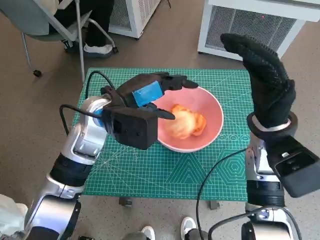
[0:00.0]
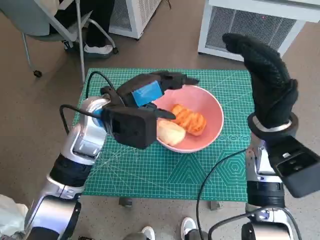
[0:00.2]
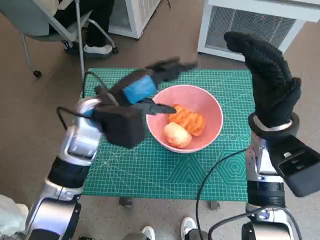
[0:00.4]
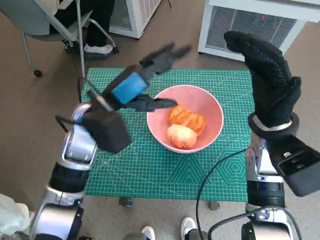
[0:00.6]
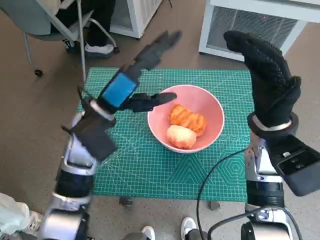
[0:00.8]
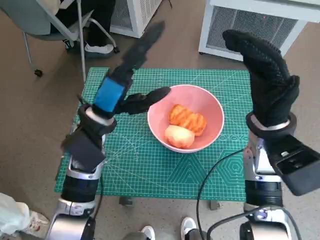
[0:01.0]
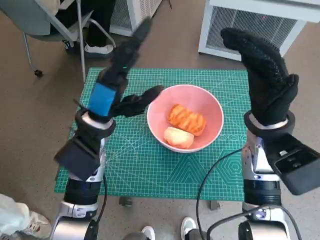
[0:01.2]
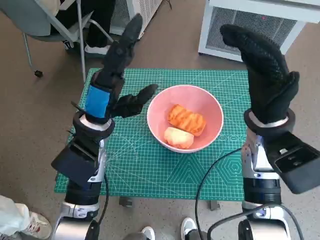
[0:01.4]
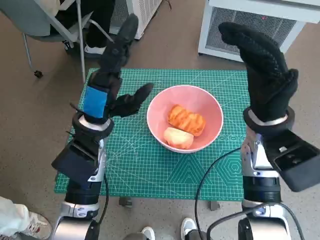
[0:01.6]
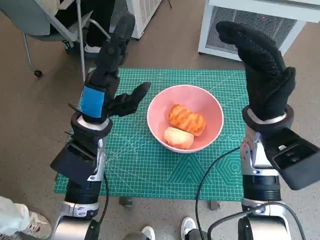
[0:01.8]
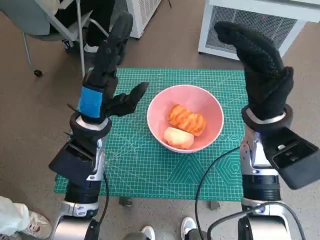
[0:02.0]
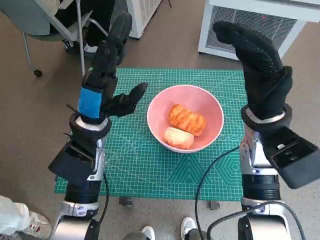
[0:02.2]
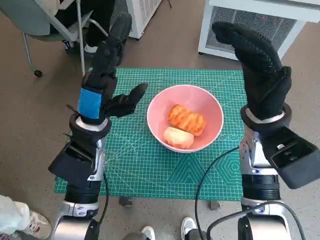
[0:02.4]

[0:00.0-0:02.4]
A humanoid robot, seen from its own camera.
Task of the whole recording: Push the bowl to the center of the table and put the bread into the bowl.
0:01.2 to 0:02.4: The hands move only a little.

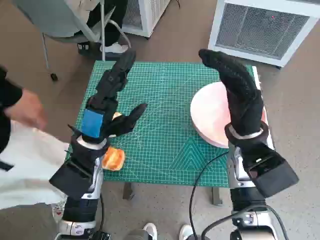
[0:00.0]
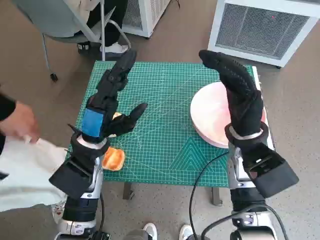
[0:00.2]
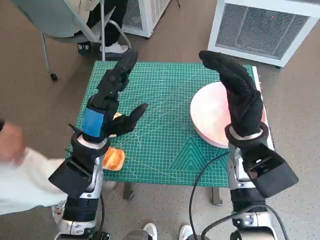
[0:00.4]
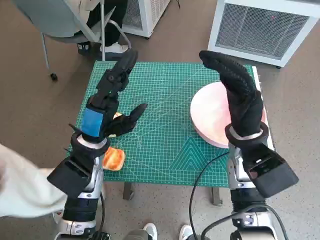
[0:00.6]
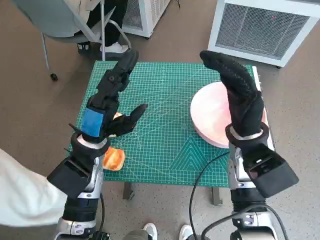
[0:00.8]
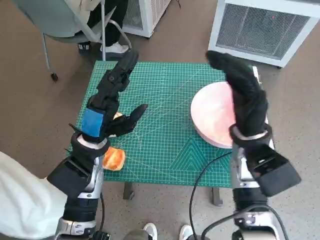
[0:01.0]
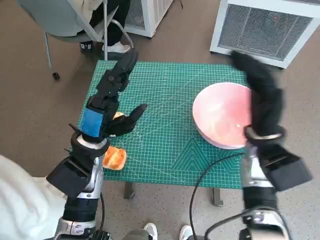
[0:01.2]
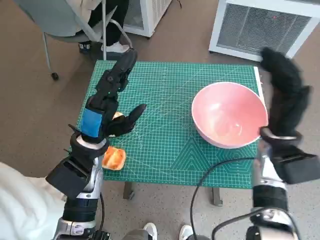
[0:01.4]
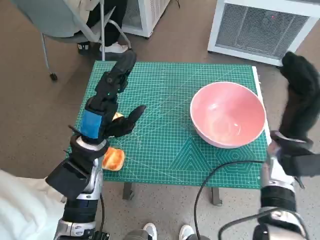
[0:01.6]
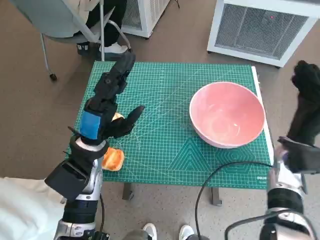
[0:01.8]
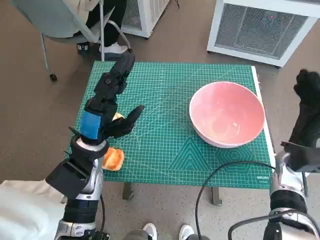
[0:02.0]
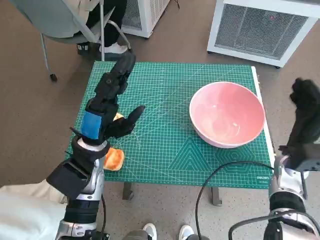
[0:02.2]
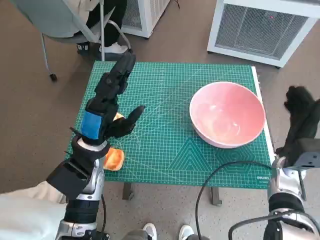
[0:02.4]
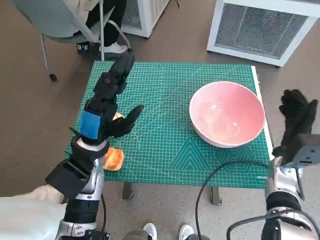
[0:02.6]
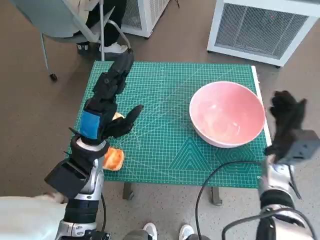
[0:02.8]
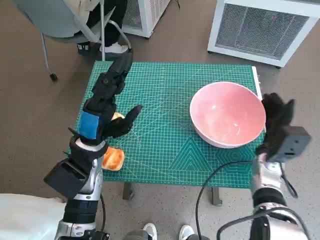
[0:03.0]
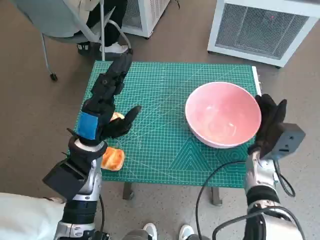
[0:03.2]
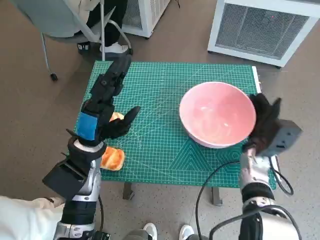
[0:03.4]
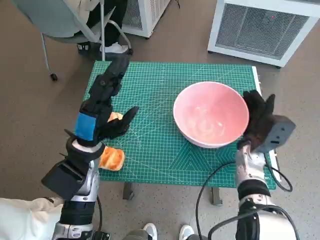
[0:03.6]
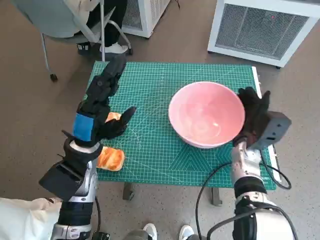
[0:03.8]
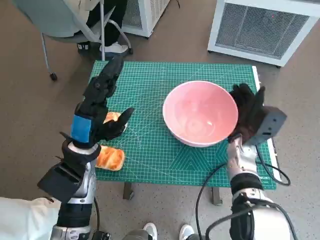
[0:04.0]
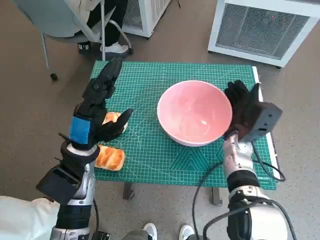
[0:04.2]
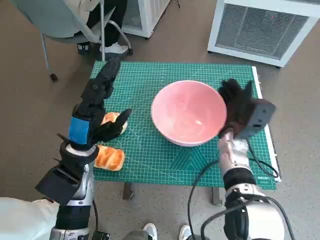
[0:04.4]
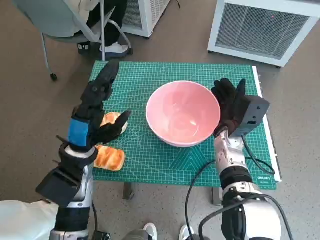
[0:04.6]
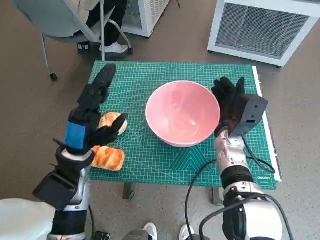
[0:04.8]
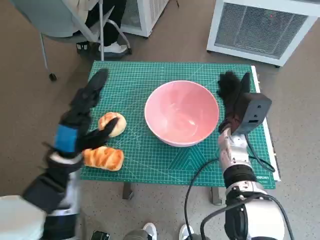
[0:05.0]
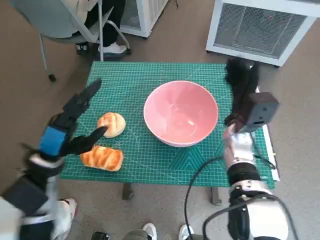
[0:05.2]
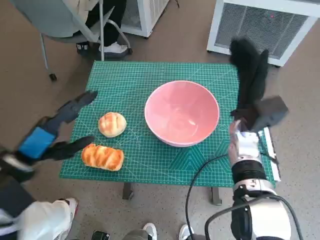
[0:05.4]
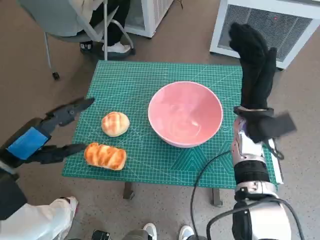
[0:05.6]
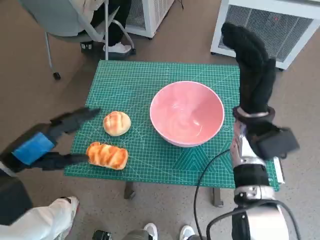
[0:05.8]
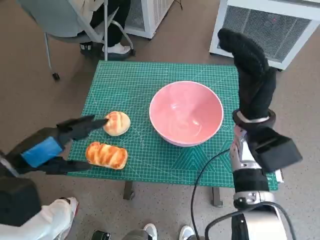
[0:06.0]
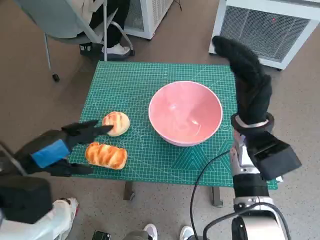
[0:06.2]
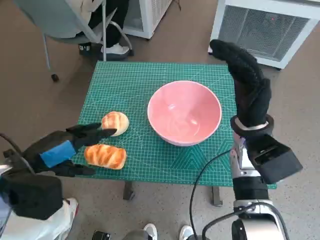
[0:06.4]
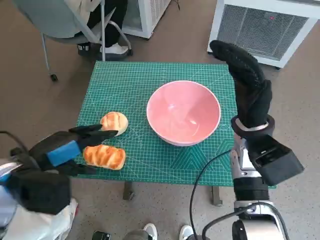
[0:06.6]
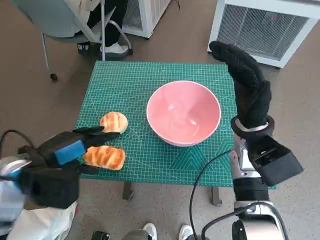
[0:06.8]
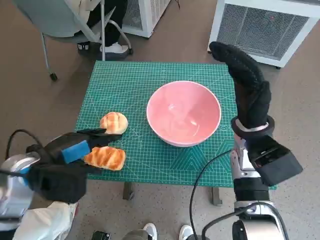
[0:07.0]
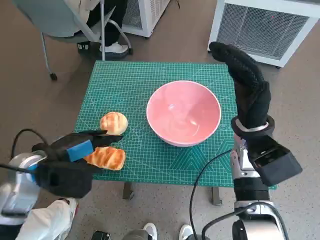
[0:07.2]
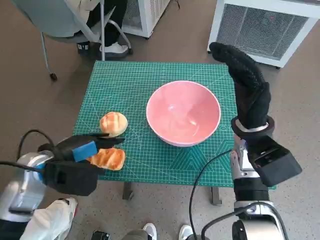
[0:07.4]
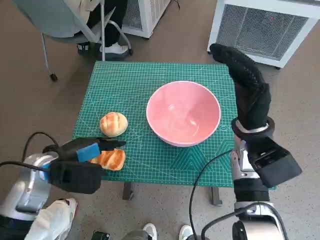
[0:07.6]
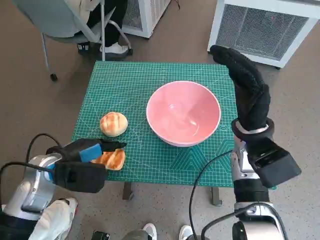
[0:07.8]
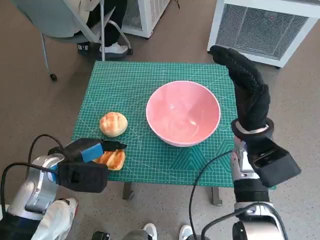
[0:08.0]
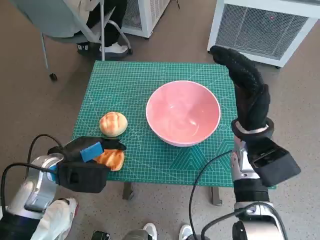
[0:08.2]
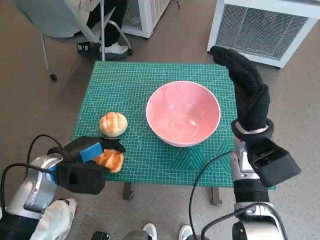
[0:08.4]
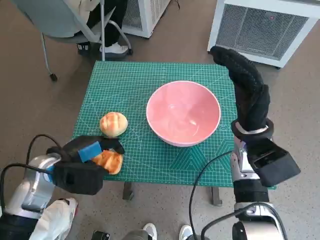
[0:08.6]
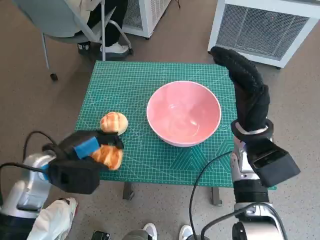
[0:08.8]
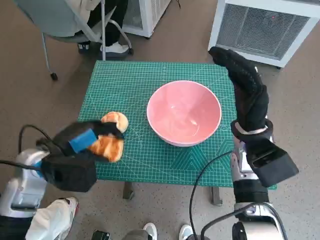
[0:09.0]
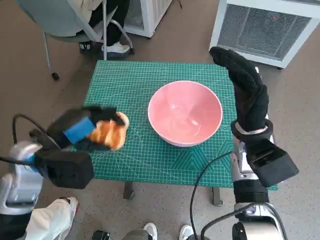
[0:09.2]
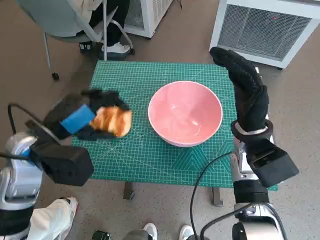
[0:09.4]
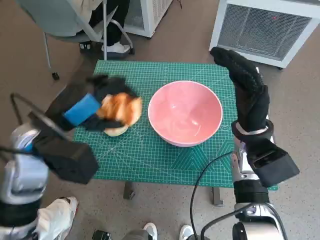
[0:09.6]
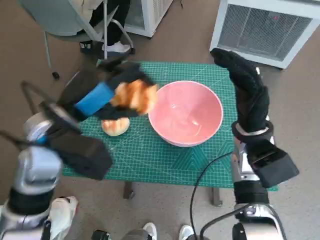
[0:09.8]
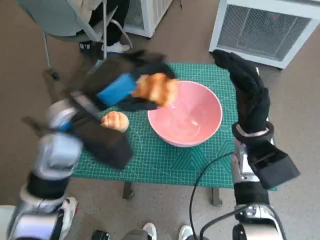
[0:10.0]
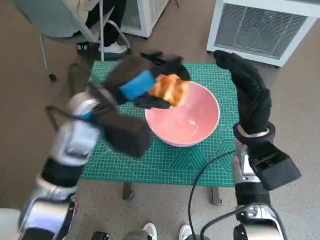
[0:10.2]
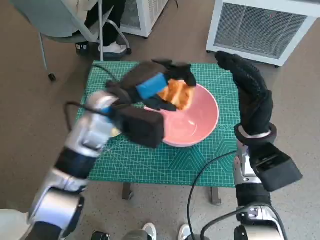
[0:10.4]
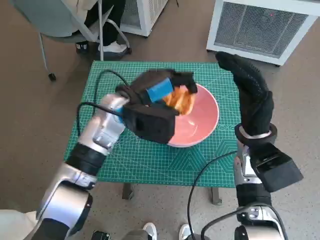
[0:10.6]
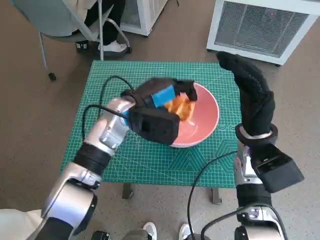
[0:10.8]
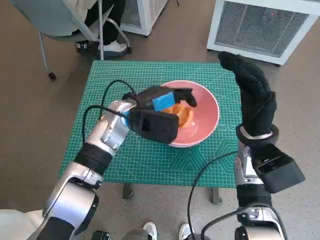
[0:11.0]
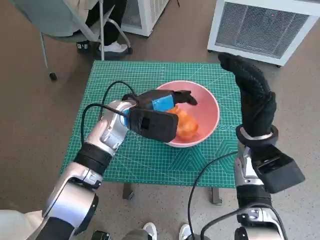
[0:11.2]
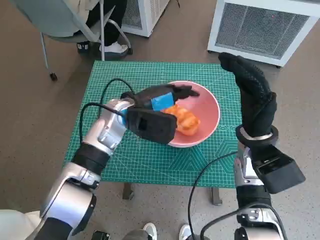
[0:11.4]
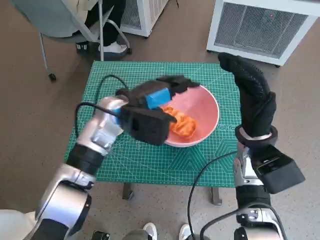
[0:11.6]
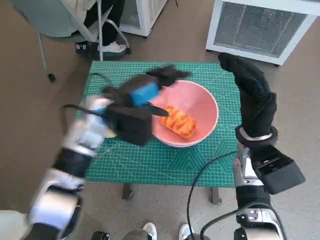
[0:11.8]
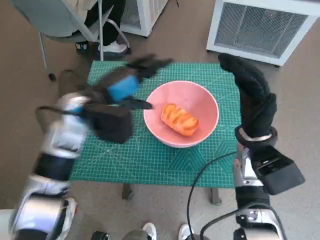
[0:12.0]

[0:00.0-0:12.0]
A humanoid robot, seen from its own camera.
Task of the whole recording: Push the bowl to the center of the table and put the bread into the bowl.
Step, 0:00.0 to 0:05.2: Move the pink bowl to the center of table with right hand.
Step, 0:05.4 to 0:08.2: Grasp the long bread with left hand.
Step, 0:08.4 to 0:12.0: Place the long bread in pink bowl with left hand.
0:01.6 to 0:03.0: The right hand is displaced downward by approximately 10 cm.
0:03.0 to 0:04.4: The right hand is displaced to the left by roughly 10 cm.
0:04.4 to 0:06.0: The right hand travels upward by some 10 cm, while the left hand is displaced to the left, upward and backward by approximately 15 cm.
0:06.0 to 0:07.6: The left hand goes some 5 cm downward.
0:07.6 to 0:09.0: There are only small adjustments of the hands.
0:09.0 to 0:10.4: The left hand travels to the right, forward and upward by approximately 15 cm.

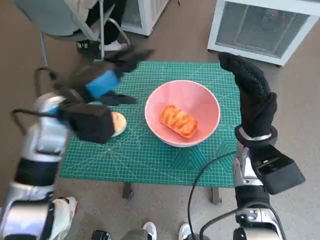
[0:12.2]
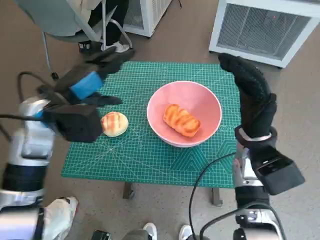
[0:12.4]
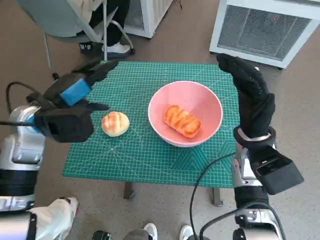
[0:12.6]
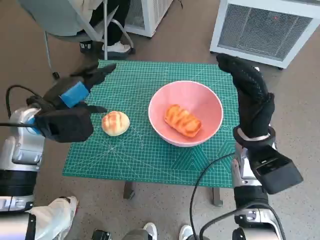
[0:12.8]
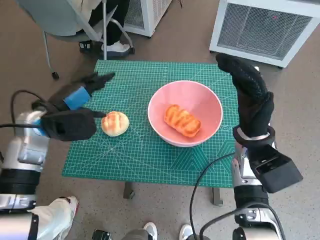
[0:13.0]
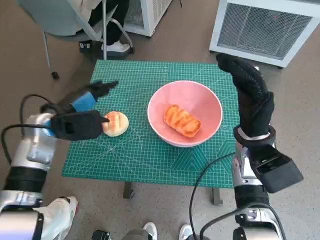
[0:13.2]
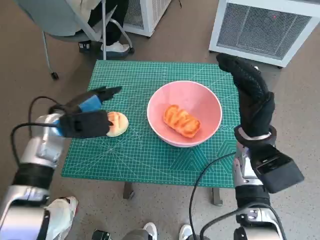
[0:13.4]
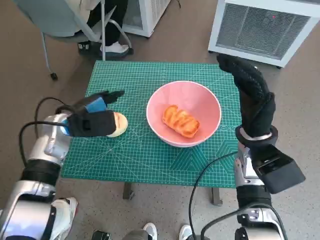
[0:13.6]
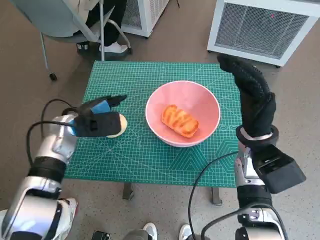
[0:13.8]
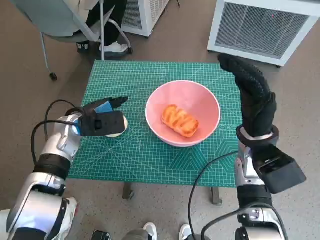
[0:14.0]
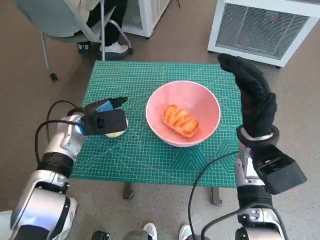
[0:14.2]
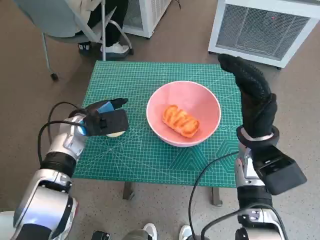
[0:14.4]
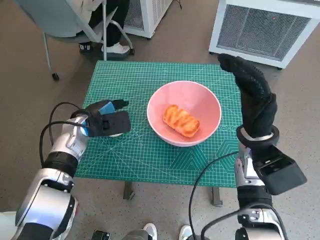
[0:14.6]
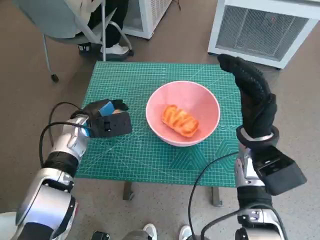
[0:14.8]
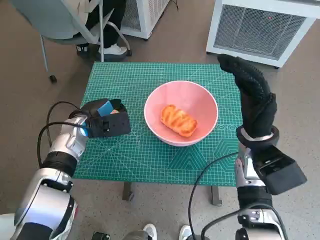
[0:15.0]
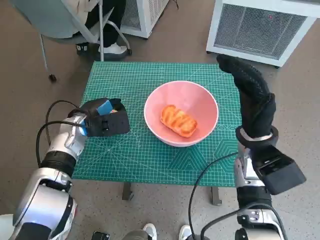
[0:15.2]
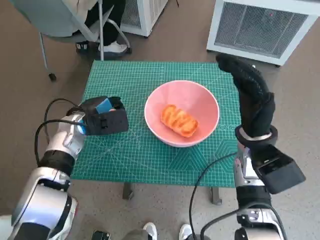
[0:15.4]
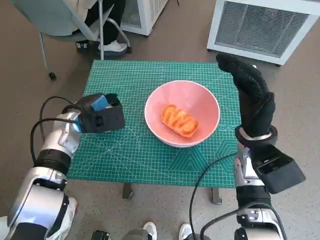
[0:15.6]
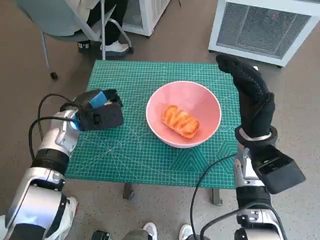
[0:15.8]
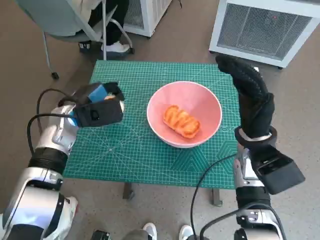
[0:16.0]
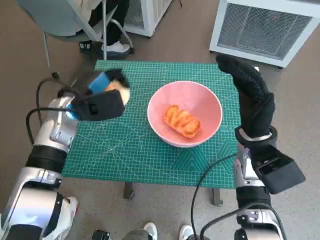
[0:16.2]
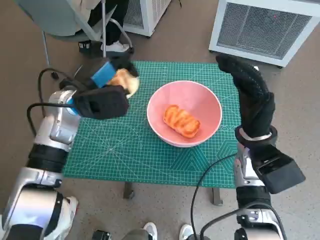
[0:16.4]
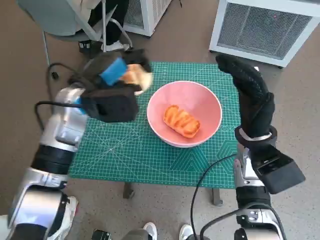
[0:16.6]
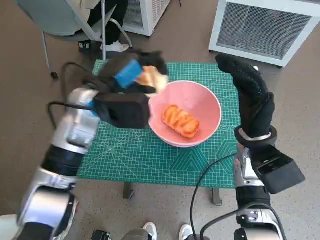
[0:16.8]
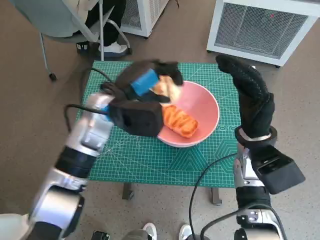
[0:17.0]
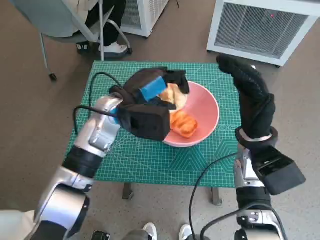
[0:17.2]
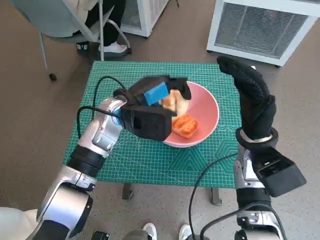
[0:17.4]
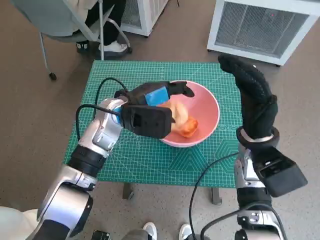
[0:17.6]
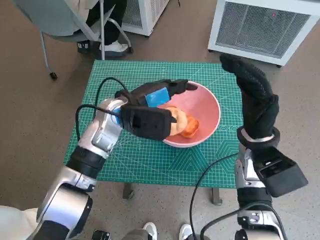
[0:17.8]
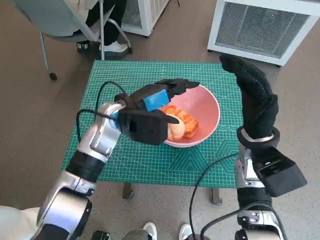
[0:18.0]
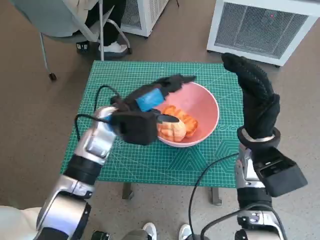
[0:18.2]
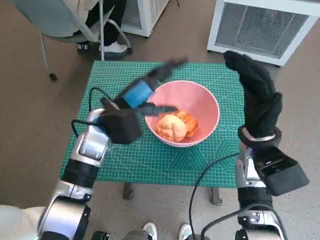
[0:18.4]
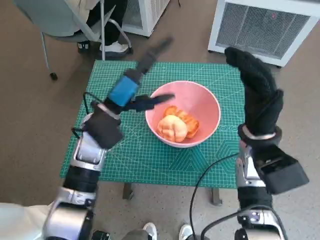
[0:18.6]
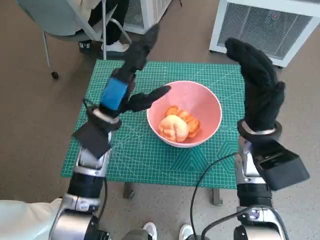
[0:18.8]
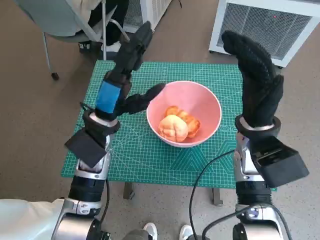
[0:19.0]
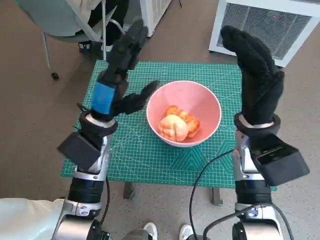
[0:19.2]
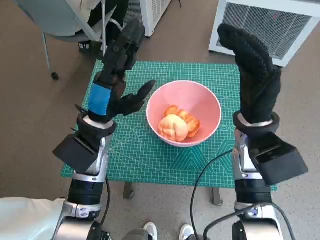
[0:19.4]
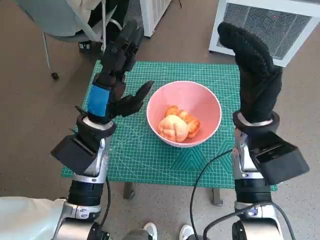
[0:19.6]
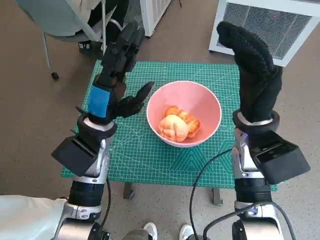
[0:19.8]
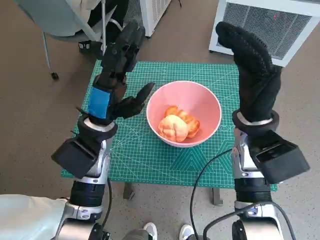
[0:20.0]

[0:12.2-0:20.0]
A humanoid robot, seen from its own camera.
Task of the whole recording: Push the bowl to the center of the table and put the bread into the bowl.
Step, 0:12.2 to 0:14.6: Grasp the round bread with left hand.
Step, 0:14.8 to 0:18.6: Place the round bread in pink bowl with left hand.
0:12.2 to 0:13.8: The left hand travels downward by roughly 10 cm.
0:13.8 to 0:15.4: The hands move only a little.
0:15.4 to 0:16.8: The left hand heads upward and to the right, covering about 10 cm.
